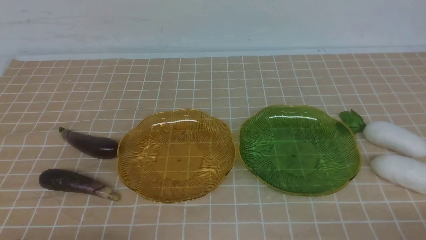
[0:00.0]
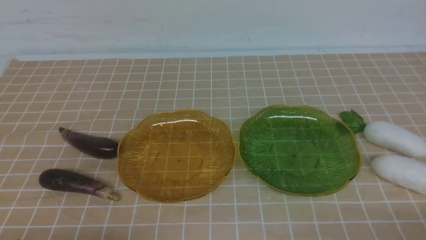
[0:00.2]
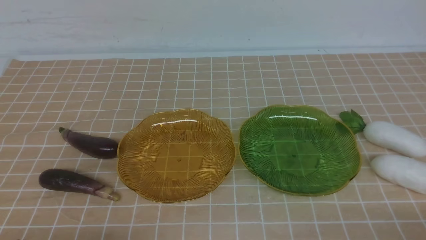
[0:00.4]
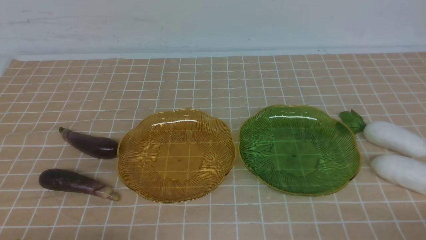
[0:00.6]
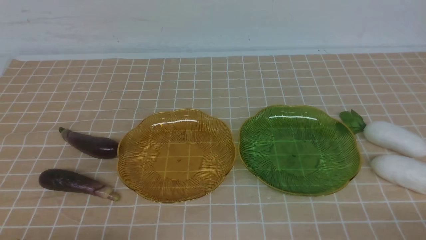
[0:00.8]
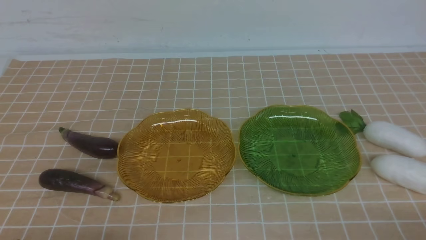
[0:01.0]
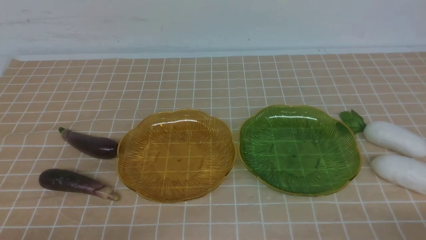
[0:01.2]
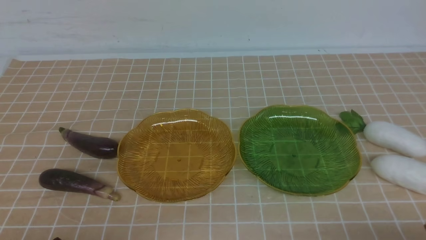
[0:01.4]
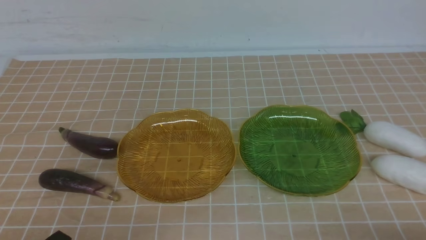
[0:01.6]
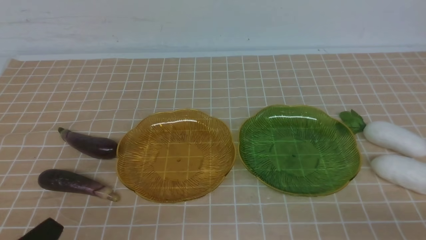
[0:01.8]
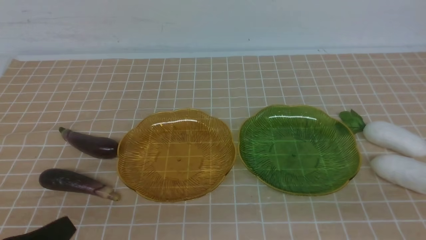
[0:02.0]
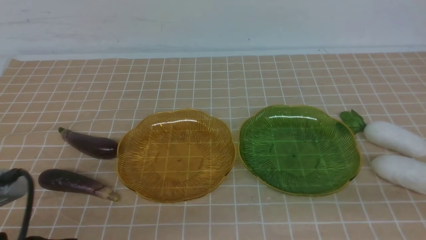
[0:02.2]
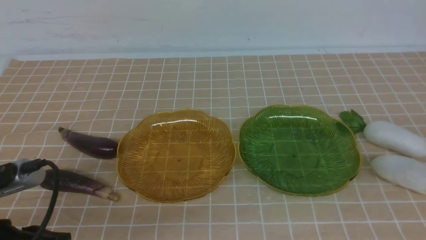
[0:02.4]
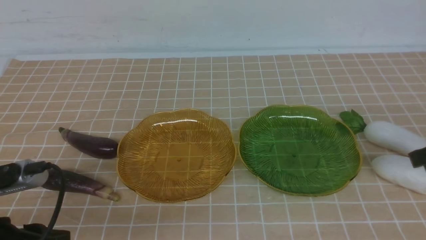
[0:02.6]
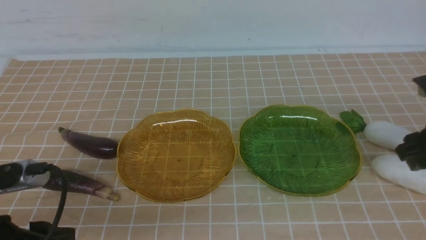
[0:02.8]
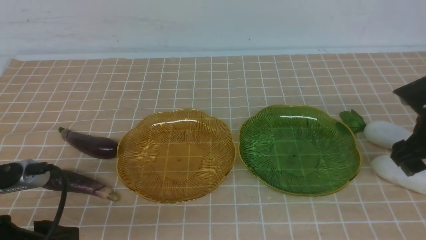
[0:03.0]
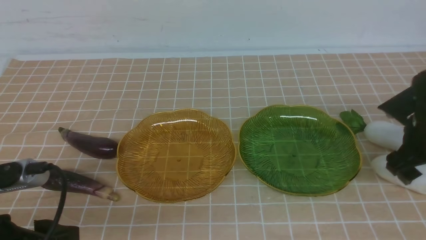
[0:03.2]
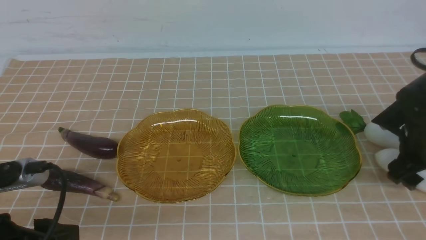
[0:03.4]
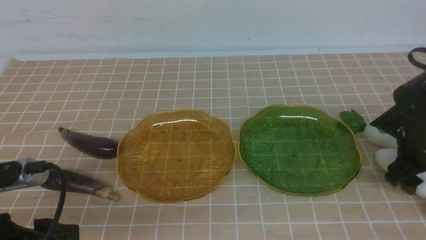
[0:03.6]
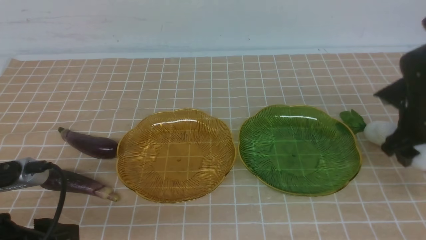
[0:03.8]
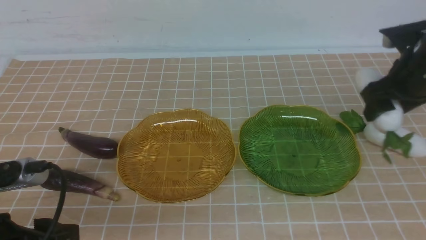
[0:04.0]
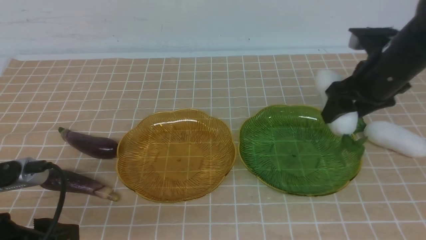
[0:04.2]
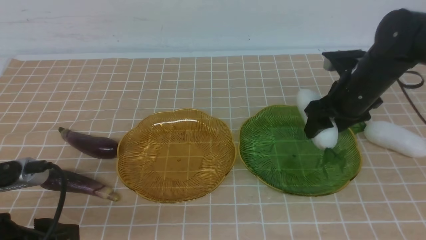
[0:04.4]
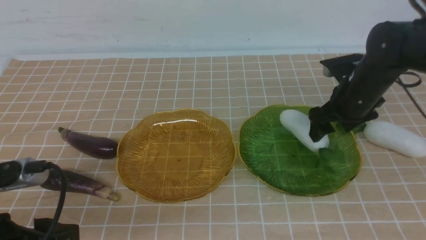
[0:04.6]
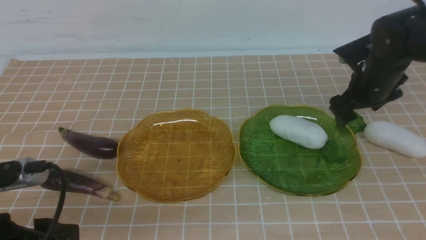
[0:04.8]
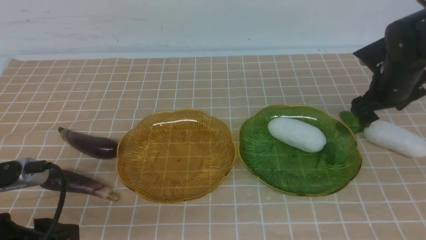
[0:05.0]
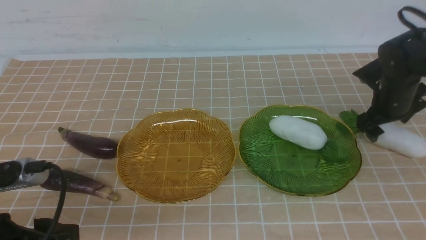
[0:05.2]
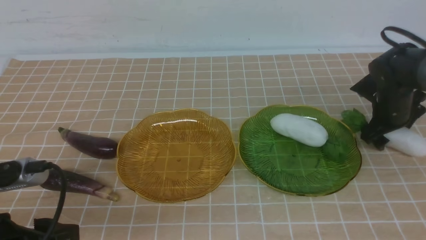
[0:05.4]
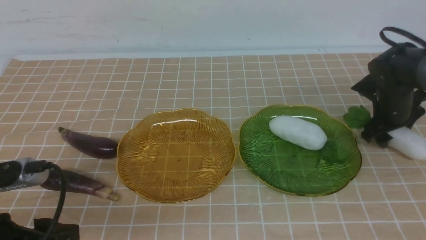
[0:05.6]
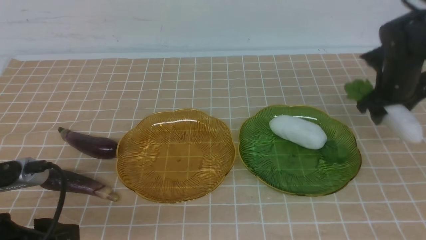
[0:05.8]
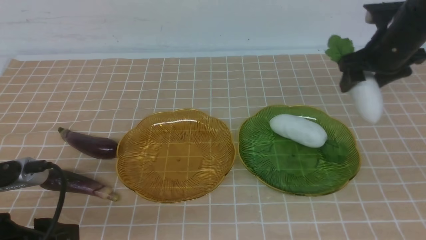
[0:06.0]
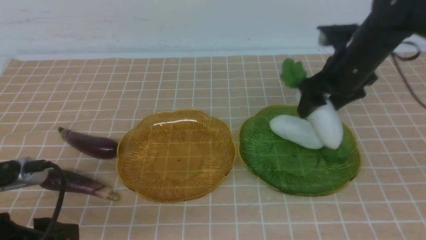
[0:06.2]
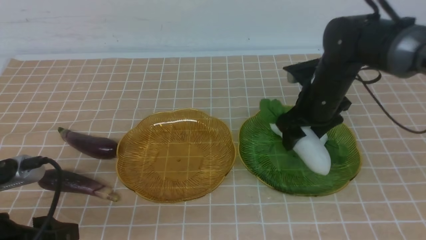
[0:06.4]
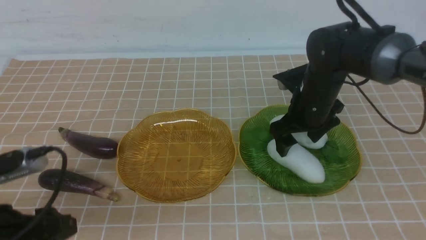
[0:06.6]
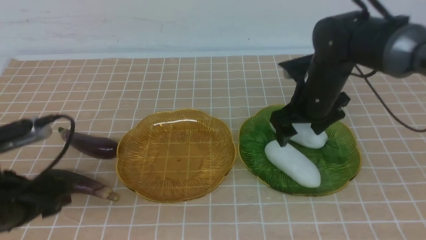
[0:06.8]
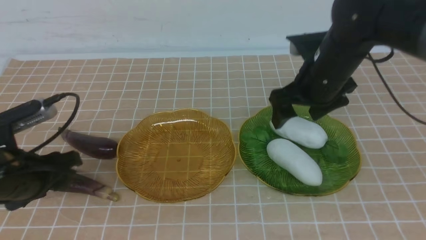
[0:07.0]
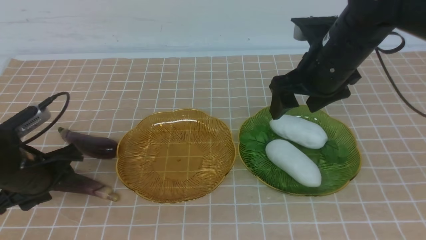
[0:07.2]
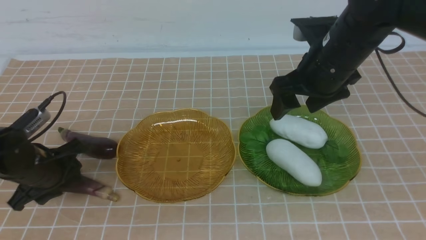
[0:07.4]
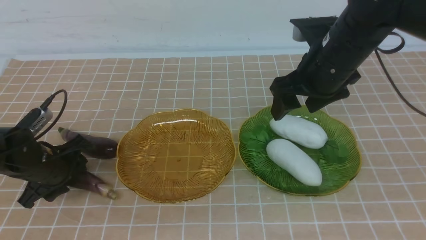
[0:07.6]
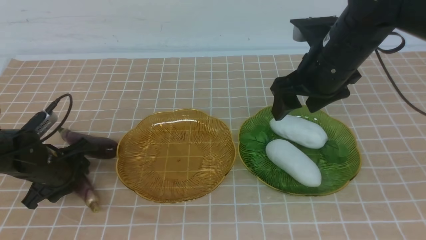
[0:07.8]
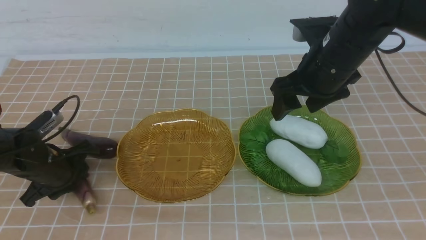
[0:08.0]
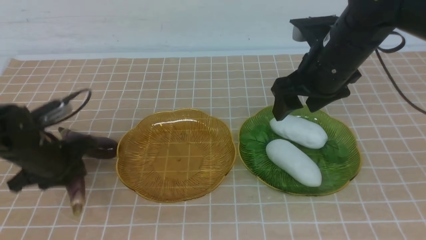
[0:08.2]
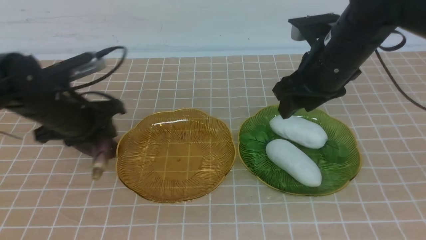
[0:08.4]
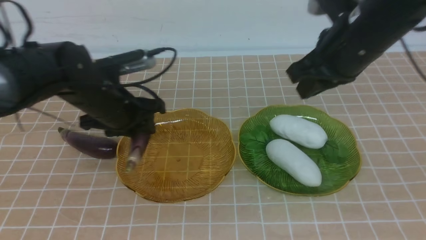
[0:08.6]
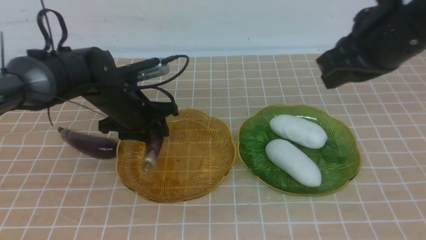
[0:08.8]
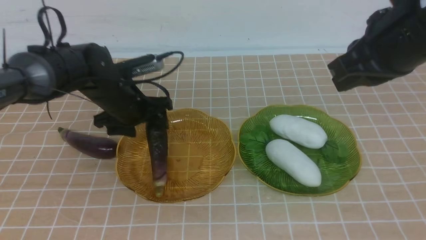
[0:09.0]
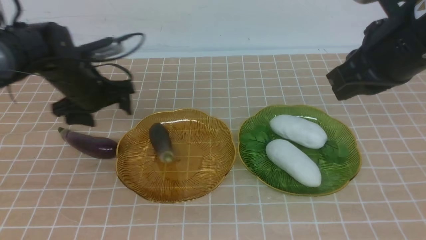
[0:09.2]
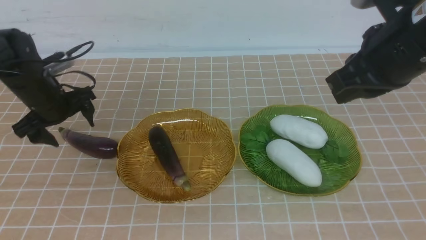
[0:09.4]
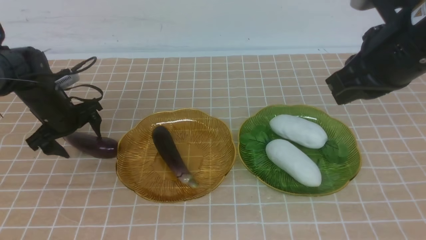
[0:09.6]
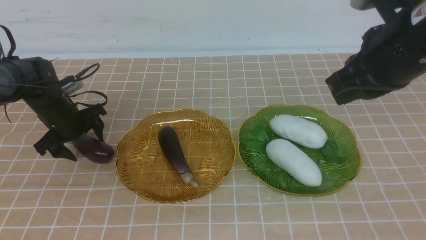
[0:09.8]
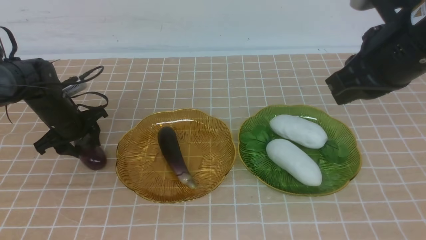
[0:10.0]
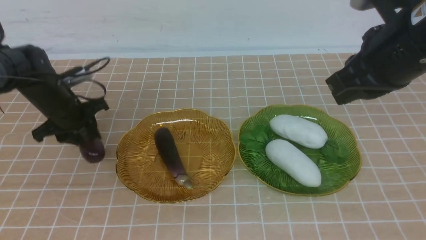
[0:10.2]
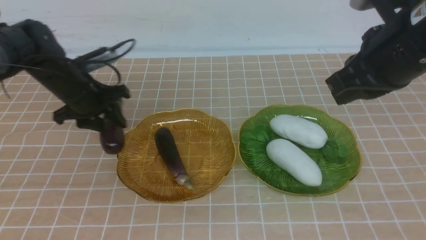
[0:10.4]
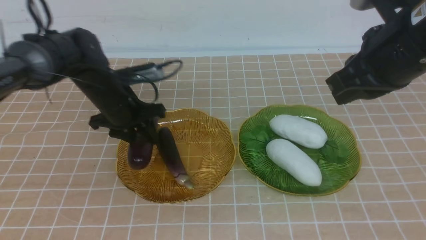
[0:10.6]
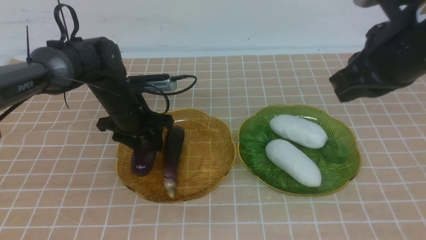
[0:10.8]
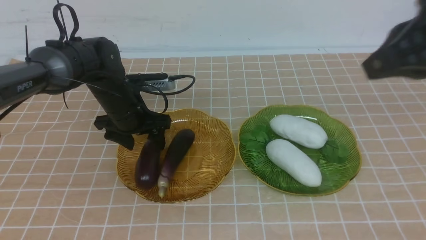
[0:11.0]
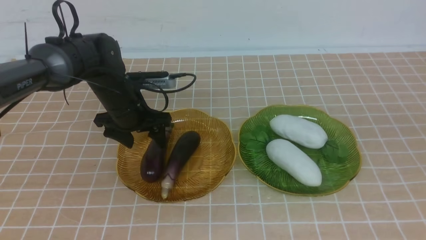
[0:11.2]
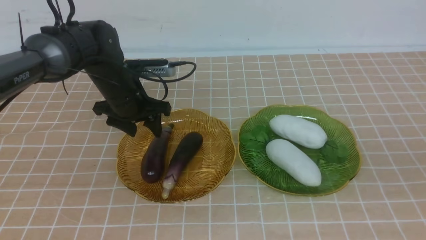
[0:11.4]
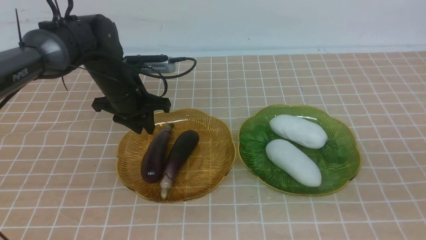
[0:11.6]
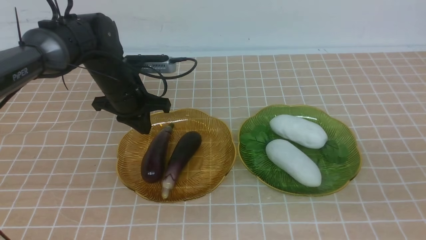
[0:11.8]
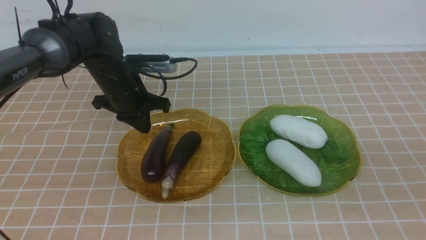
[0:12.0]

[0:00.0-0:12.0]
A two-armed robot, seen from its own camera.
Step, 0:00.0 to 0:07.0: use the right arm to grab a radish and put it into the right plate.
Step, 0:07.2 to 0:12.0: use the left arm to grab an eggplant and put it into the left plate.
0:01.6 to 0:03.0: The left gripper goes about 10 cm upward and forward, and opens up; the right gripper goes about 25 cm forward, and opens up.
0:03.0 to 0:04.4: The right gripper moves to the left and forward, some 10 cm, and goes upward and returns, roughly 5 cm each way.
0:04.4 to 0:06.0: The right gripper moves some 10 cm downward and comes back.
0:06.0 to 0:07.6: The right gripper goes about 10 cm to the left and backward. The left gripper travels forward and downward by roughly 20 cm.
0:07.6 to 0:09.0: The right gripper shifts about 10 cm upward and backward, and closes, while the left gripper heads to the right, forward and upward, covering roughly 15 cm.
0:09.0 to 0:10.4: The left gripper travels to the left by roughly 5 cm, and closes its fingers.
0:10.4 to 0:12.0: The left gripper travels to the right by some 5 cm, and closes its fingers. The right gripper shifts about 20 cm backward and to the right.

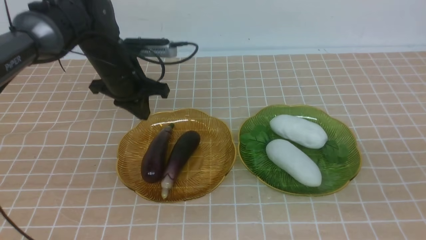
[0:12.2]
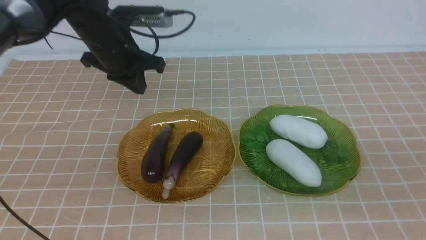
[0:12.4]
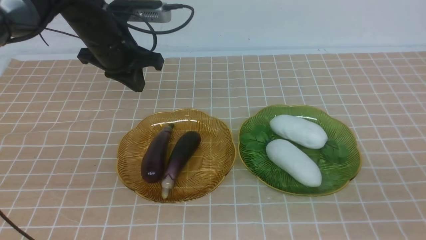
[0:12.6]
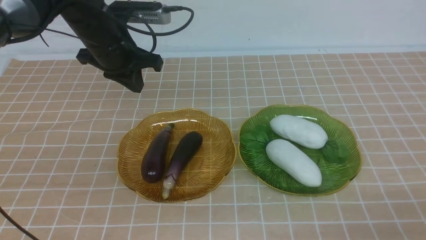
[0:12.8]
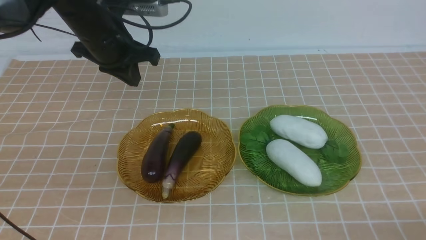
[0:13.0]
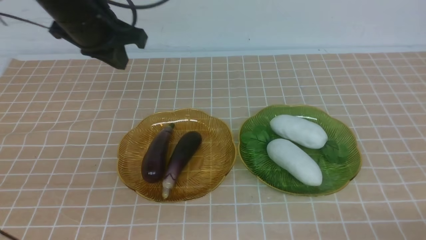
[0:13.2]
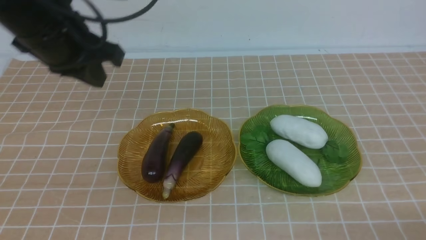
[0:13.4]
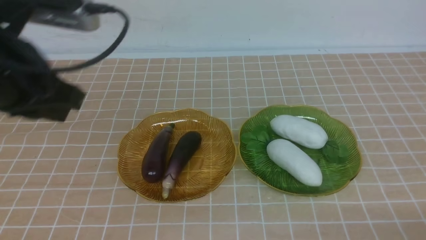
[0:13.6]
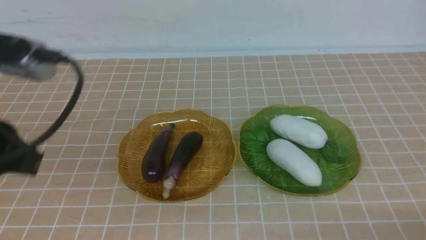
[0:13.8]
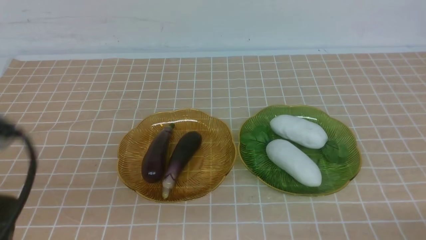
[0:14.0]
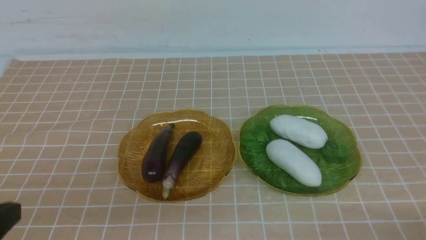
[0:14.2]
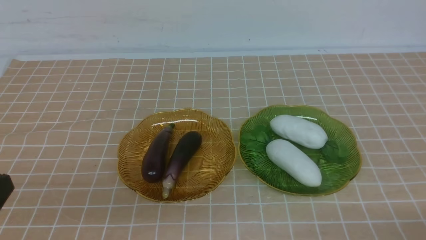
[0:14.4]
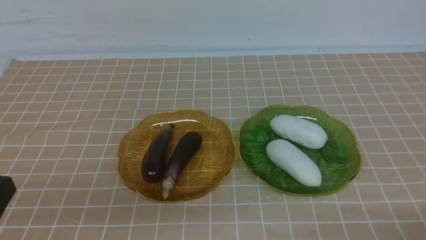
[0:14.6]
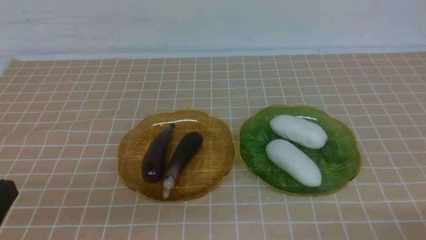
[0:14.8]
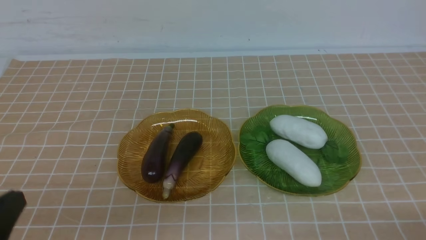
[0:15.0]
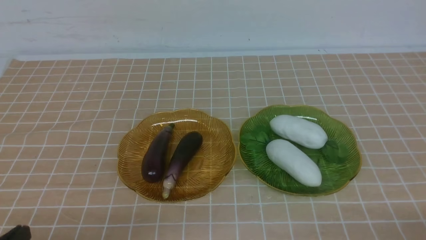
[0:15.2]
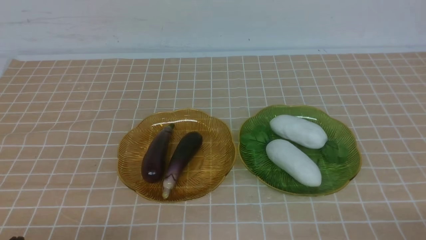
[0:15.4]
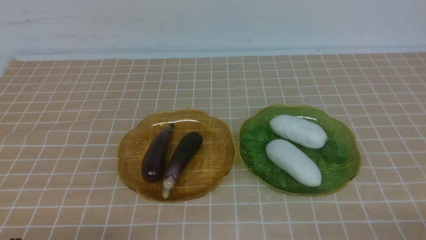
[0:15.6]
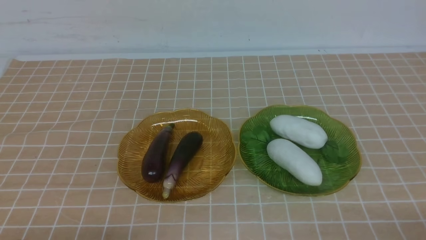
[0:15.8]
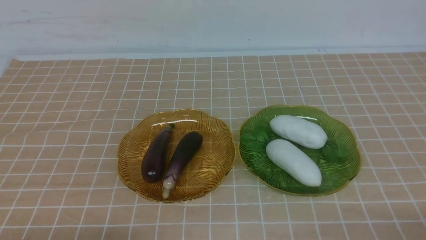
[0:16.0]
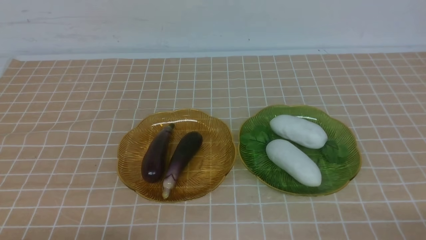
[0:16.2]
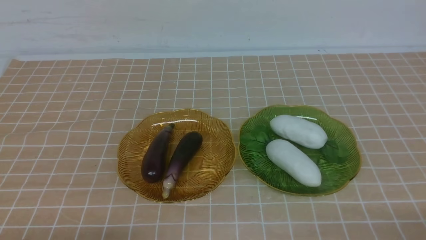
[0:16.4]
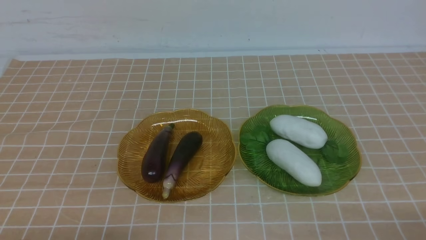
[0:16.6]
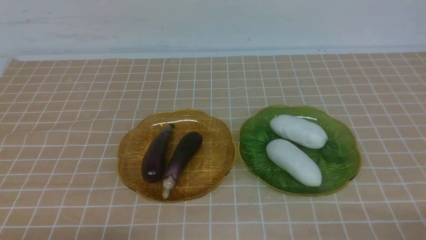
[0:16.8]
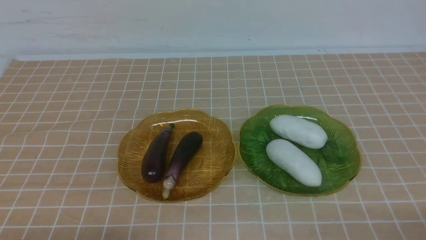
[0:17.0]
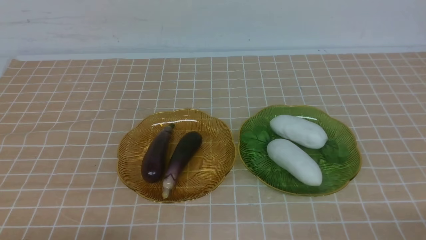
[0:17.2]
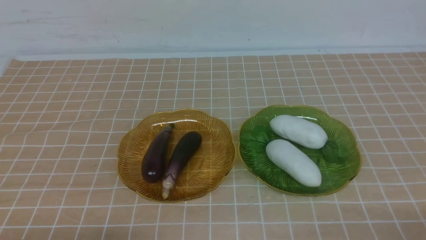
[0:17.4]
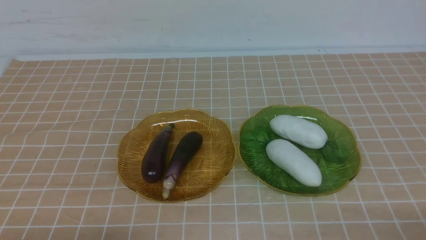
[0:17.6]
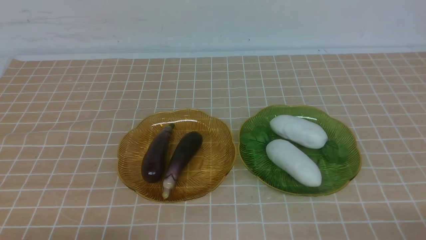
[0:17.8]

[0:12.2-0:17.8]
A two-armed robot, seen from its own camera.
0:12.2 to 0:13.6: The right gripper goes about 15 cm downward. The left gripper goes roughly 20 cm backward and upward.
0:13.6 to 0:15.0: The left gripper travels backward and downward by some 25 cm.
0:15.0 to 0:16.4: The left gripper is displaced downward by about 10 cm.
0:16.4 to 0:17.8: The two grippers keep their place.
